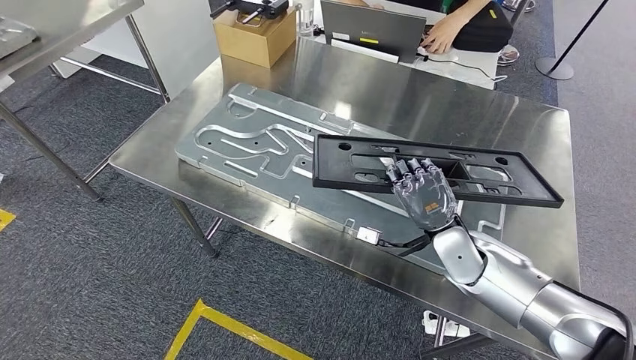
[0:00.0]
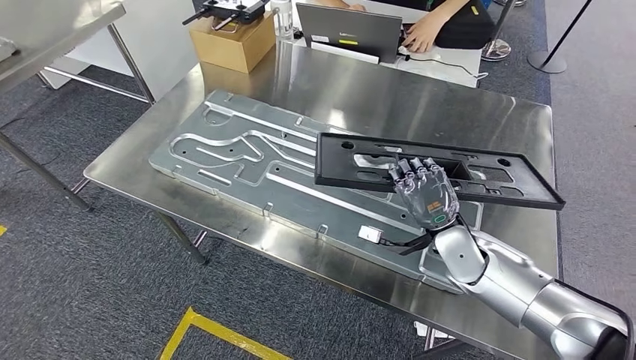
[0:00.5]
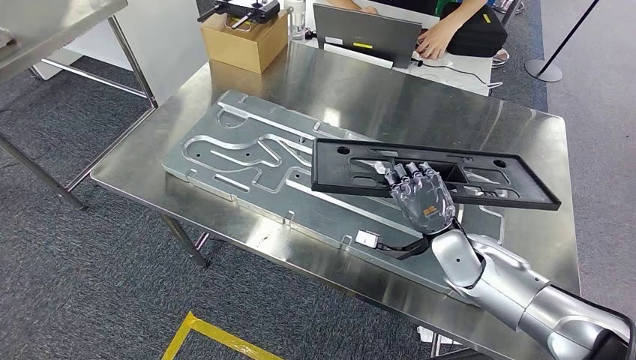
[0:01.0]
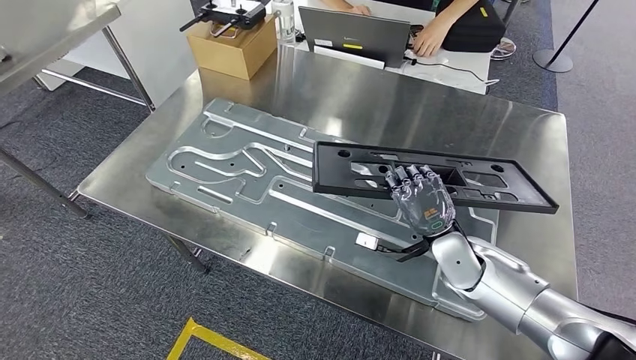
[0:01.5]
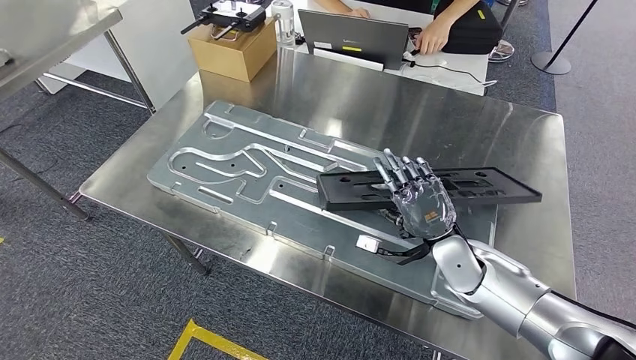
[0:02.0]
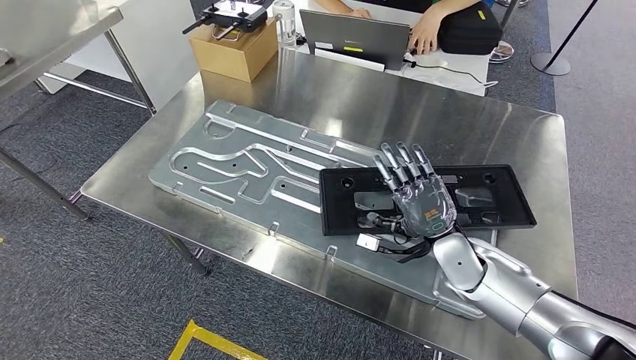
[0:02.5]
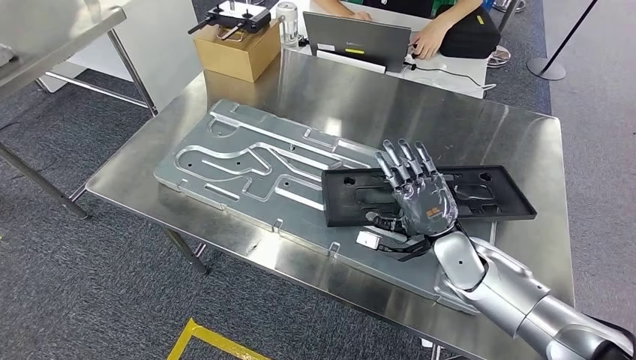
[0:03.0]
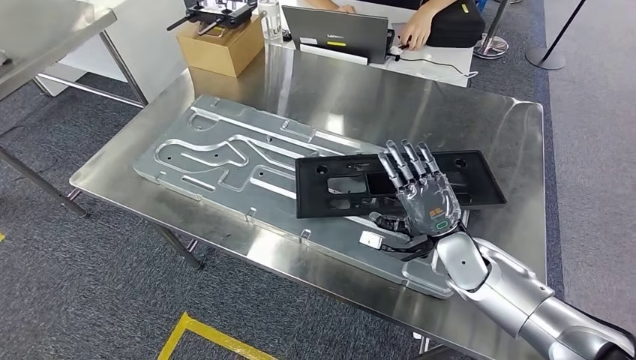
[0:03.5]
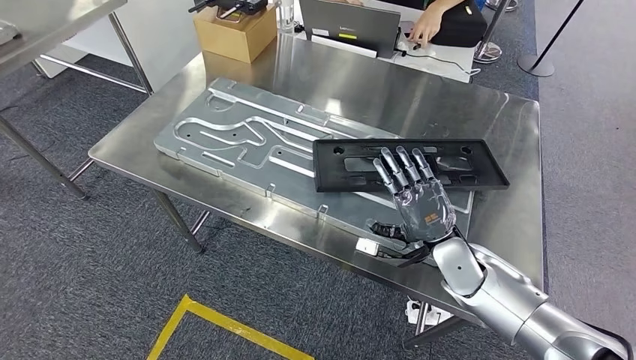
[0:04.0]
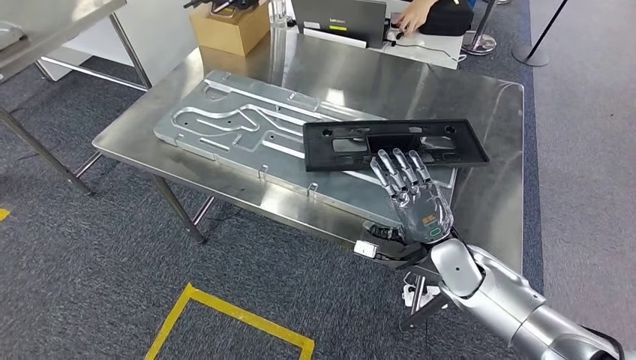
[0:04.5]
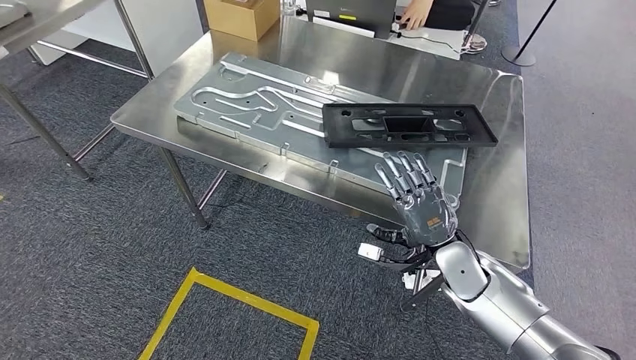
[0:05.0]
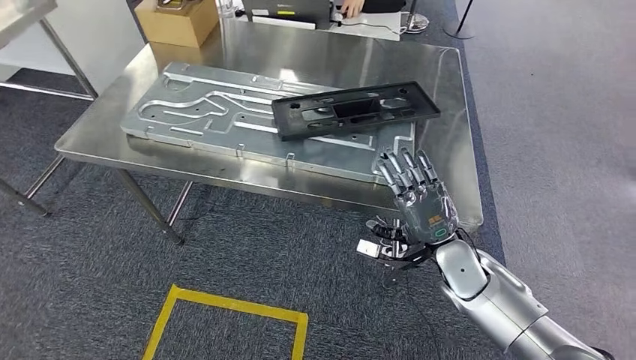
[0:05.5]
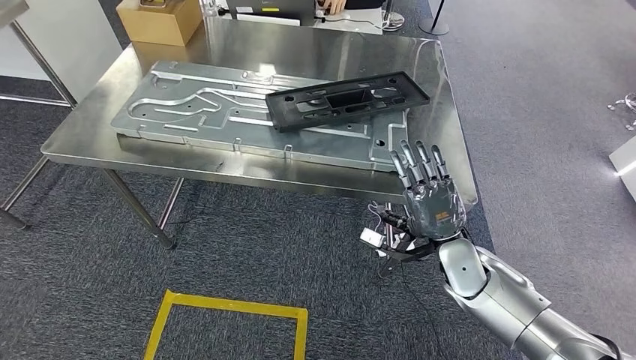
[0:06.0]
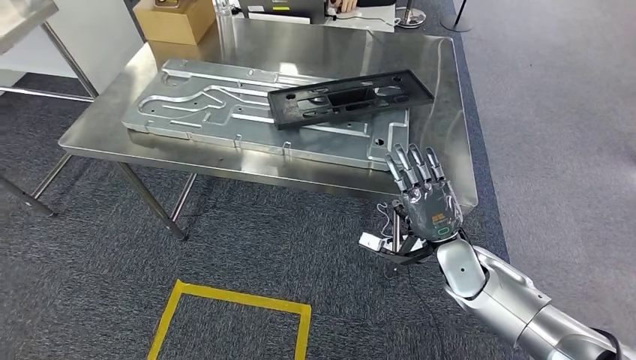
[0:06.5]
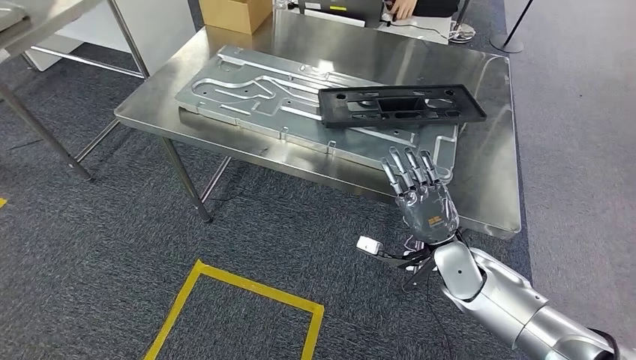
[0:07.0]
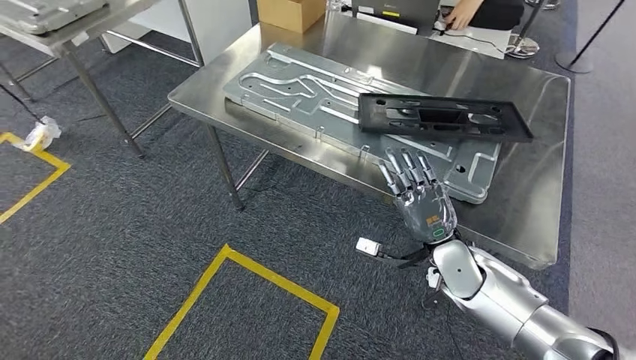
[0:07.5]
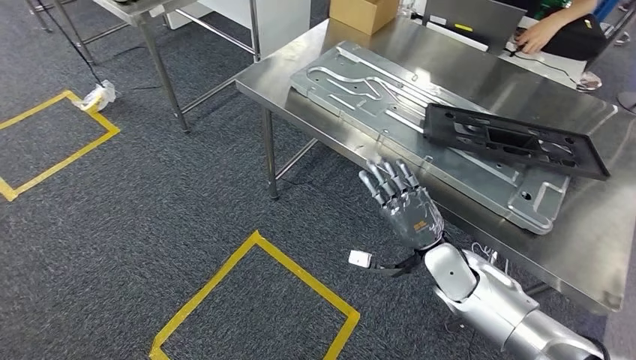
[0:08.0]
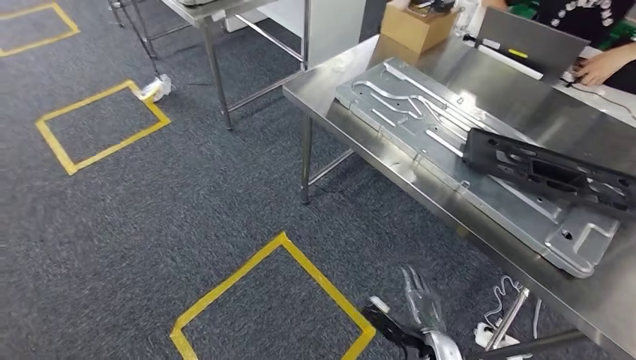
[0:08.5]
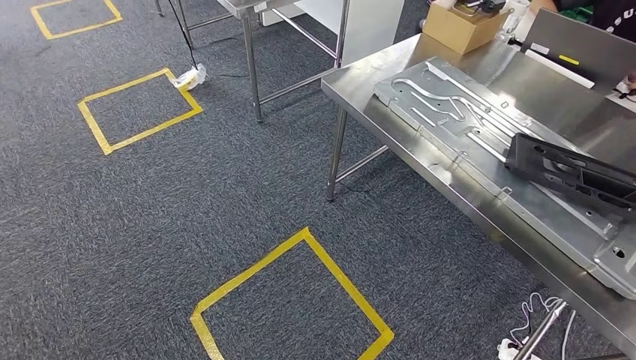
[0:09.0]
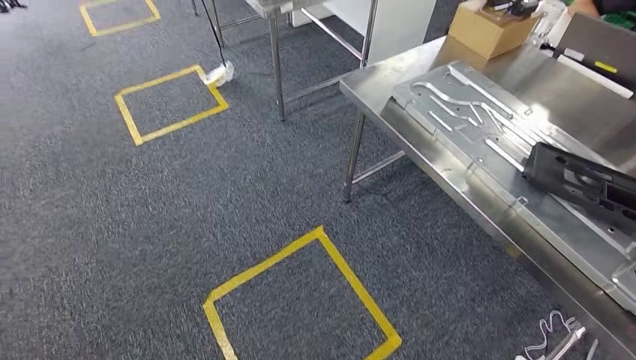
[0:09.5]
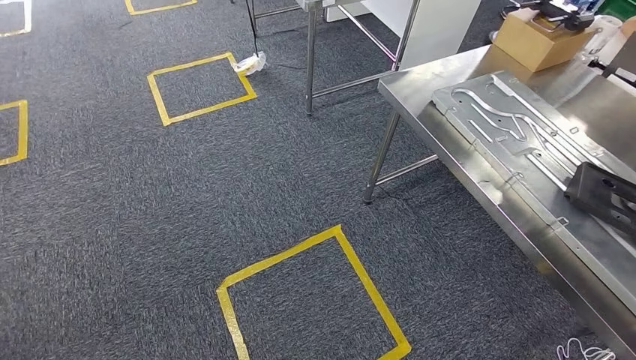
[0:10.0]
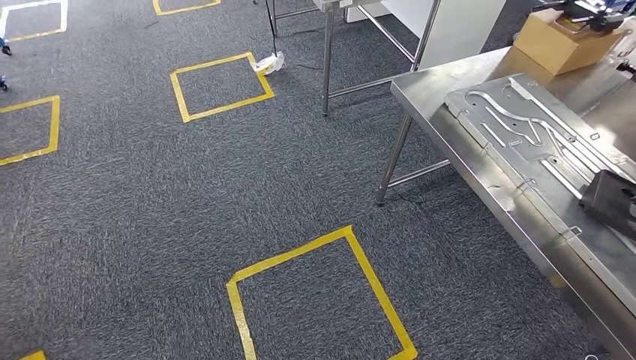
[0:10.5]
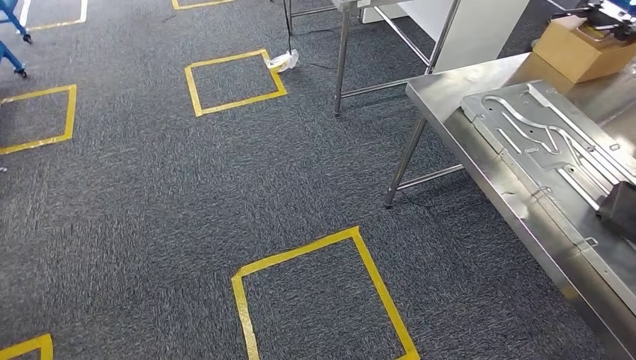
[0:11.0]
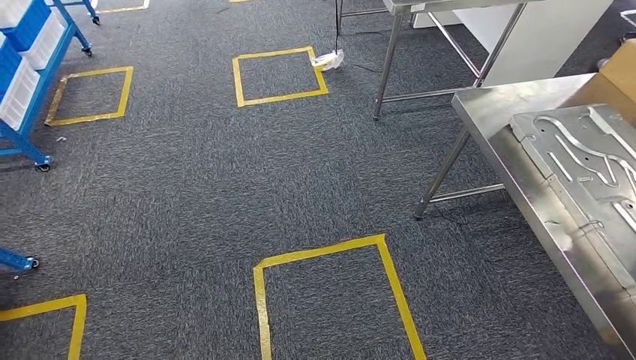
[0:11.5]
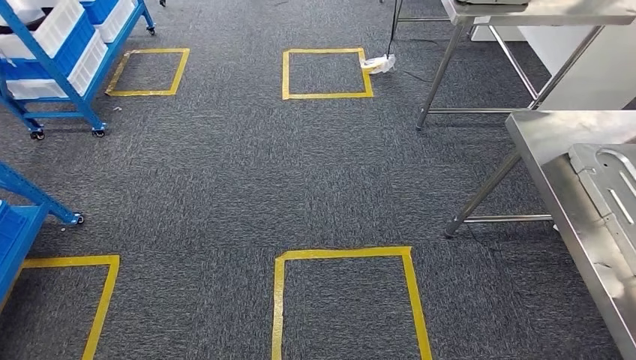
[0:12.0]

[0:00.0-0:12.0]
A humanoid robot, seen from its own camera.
Step, 0:00.0 to 0:05.0: Insert the large material into the corresponding slot on the workbench.

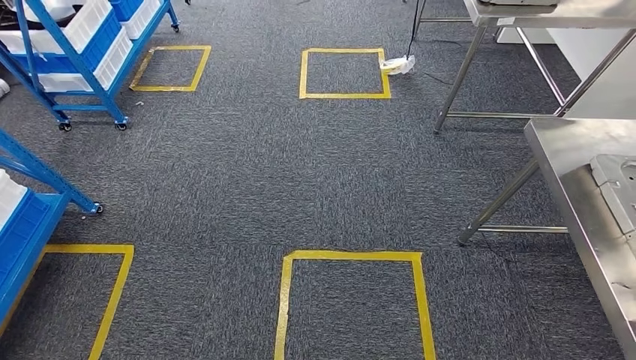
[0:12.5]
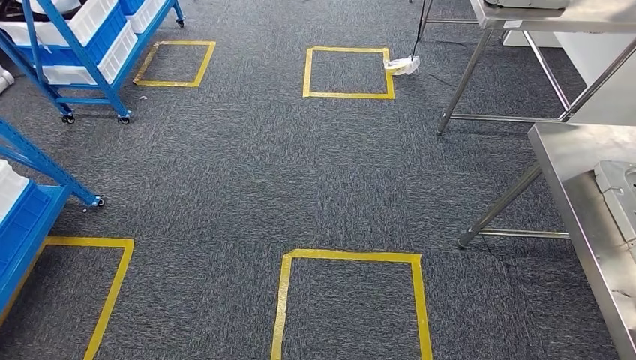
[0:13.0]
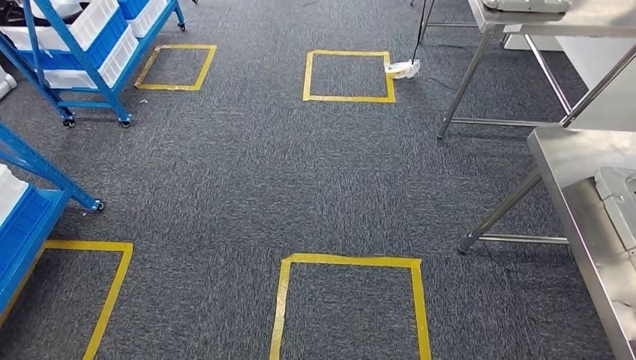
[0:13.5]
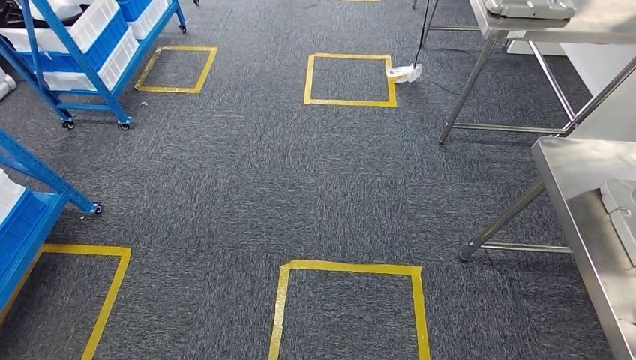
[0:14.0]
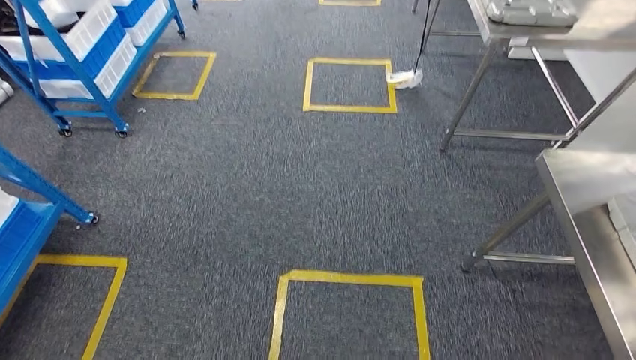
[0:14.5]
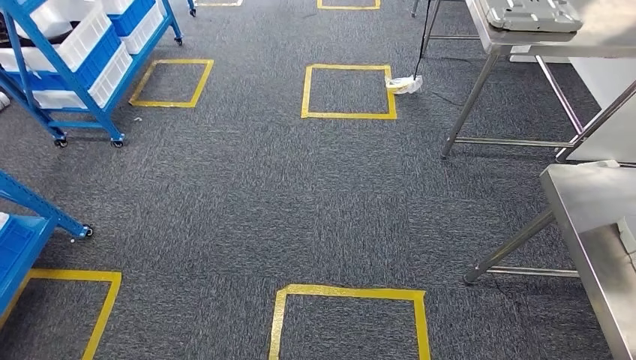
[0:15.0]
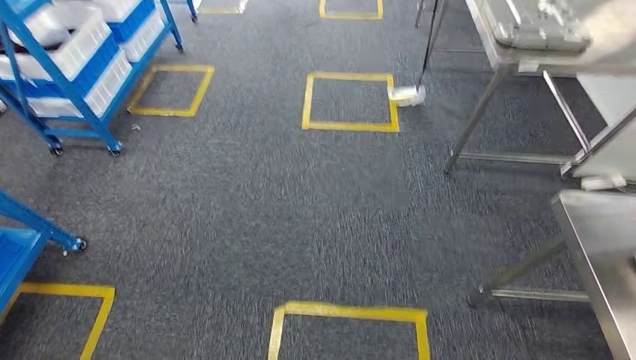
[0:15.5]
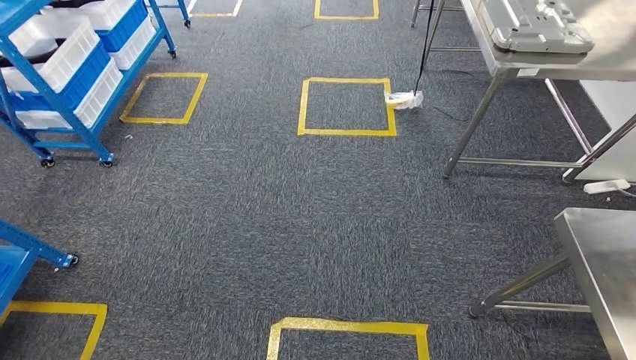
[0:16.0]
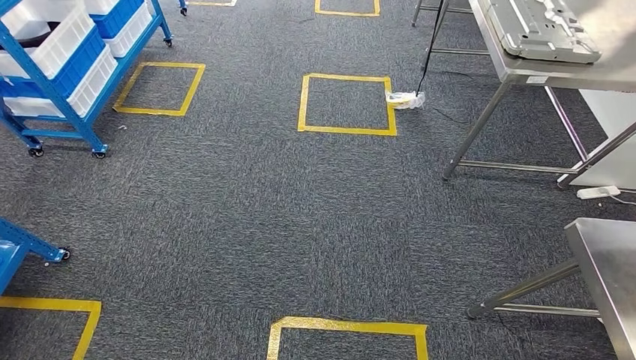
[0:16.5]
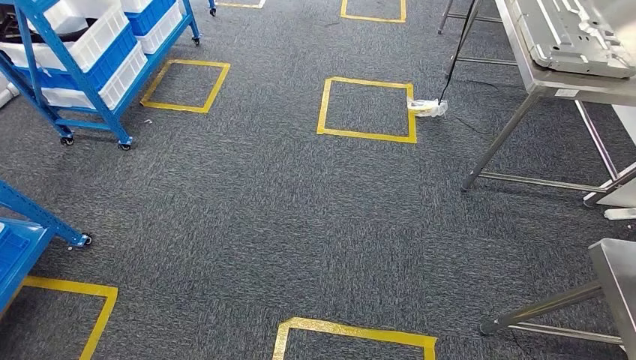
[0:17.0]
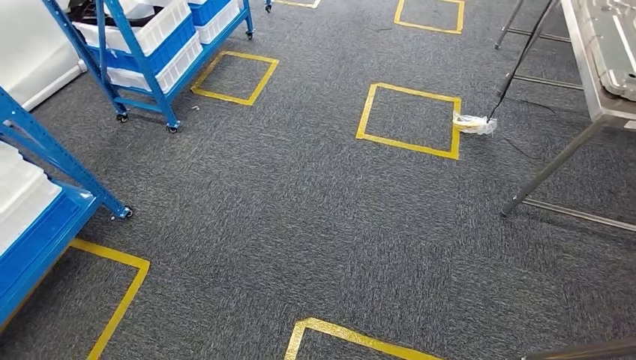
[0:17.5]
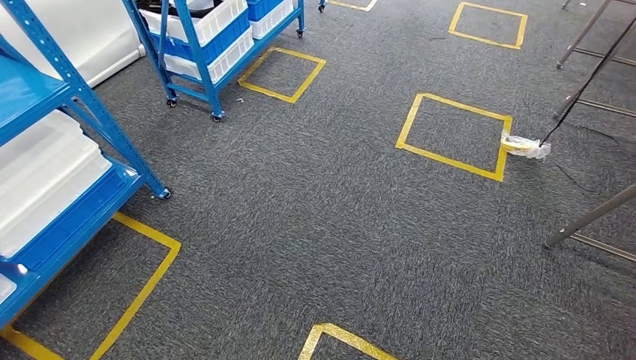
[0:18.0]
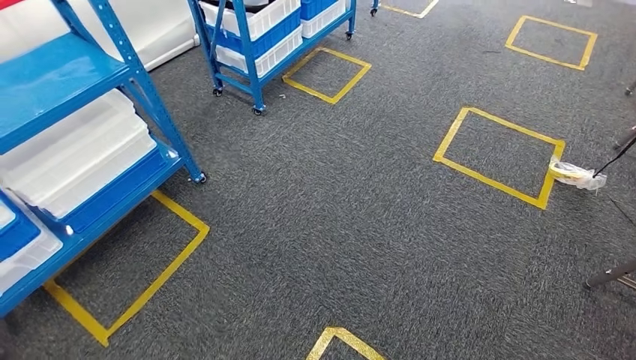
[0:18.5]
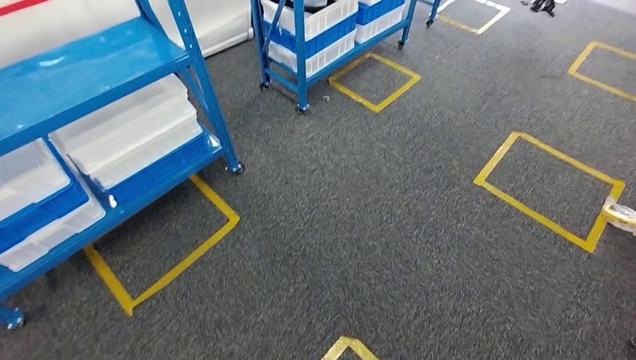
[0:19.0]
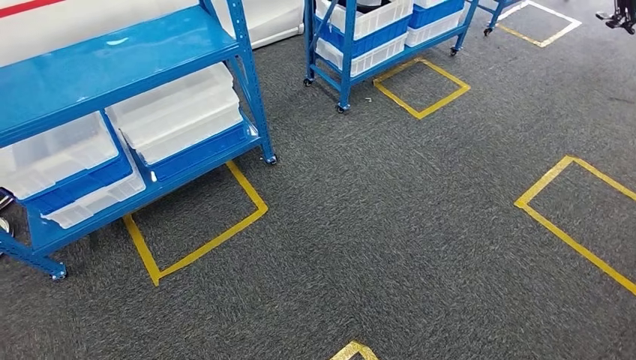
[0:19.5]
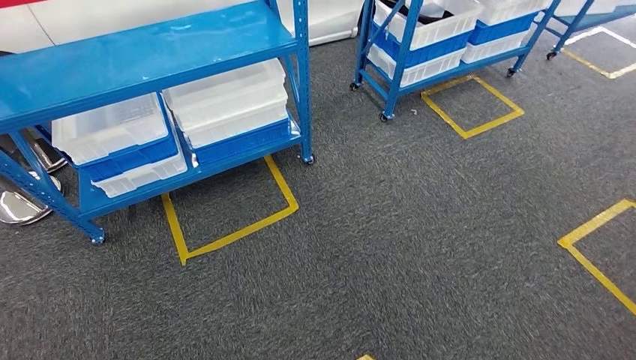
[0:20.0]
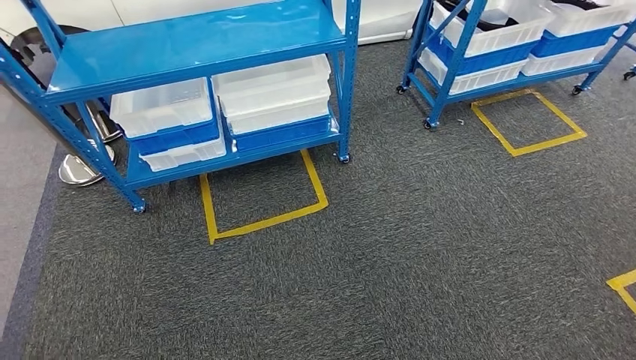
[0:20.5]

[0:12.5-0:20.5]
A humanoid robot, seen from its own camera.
Step, 0:12.5 to 0:20.5: Move to the initial position of the shelf.
